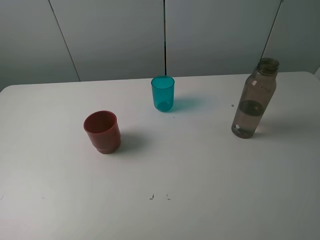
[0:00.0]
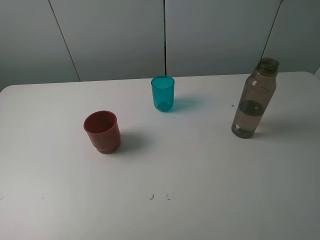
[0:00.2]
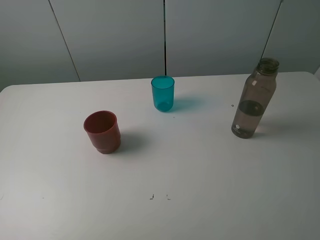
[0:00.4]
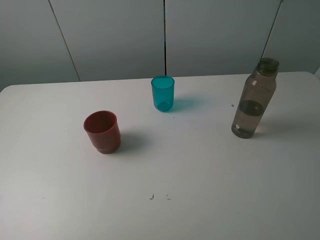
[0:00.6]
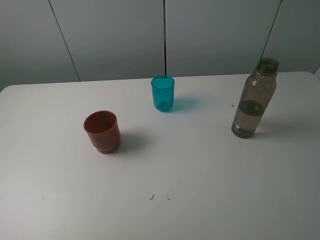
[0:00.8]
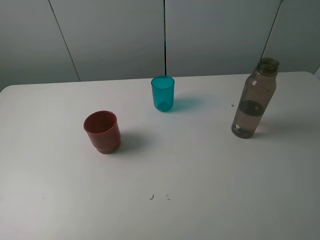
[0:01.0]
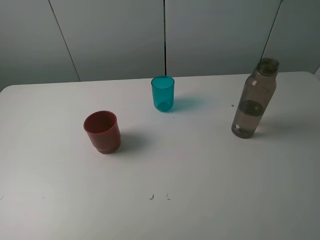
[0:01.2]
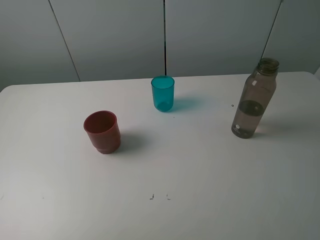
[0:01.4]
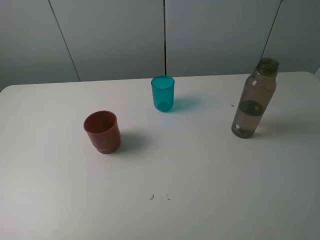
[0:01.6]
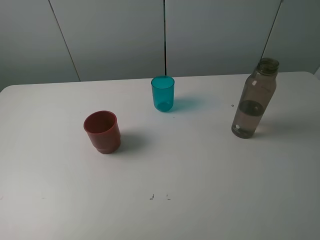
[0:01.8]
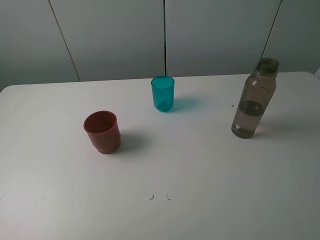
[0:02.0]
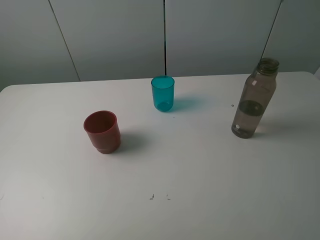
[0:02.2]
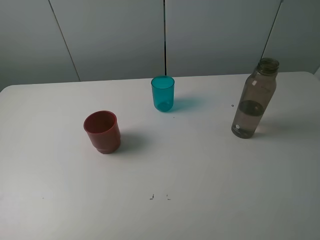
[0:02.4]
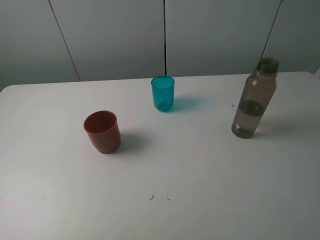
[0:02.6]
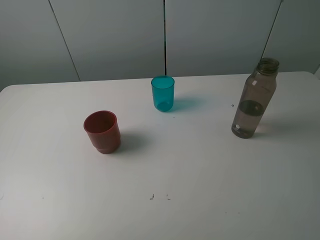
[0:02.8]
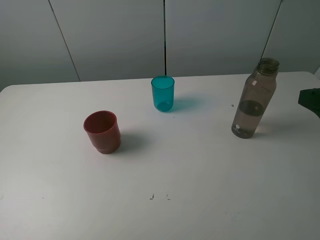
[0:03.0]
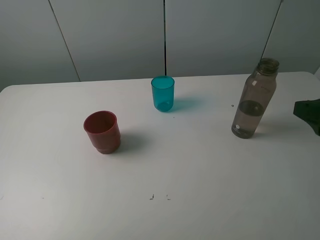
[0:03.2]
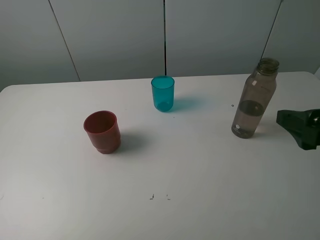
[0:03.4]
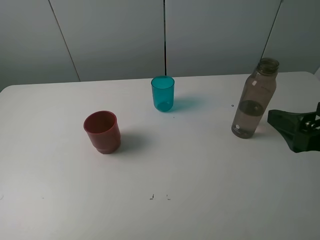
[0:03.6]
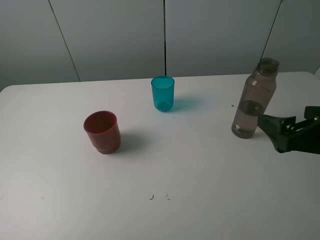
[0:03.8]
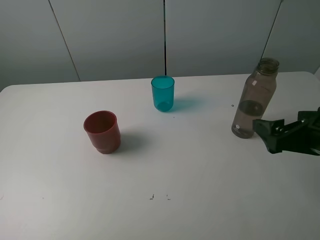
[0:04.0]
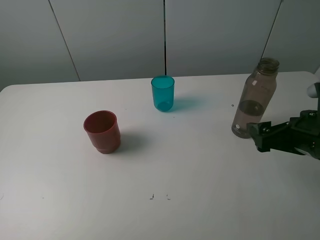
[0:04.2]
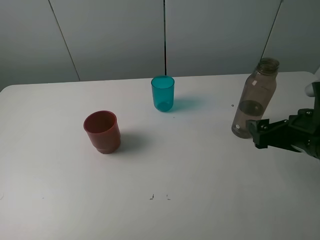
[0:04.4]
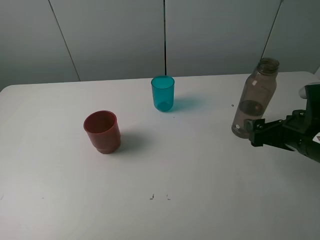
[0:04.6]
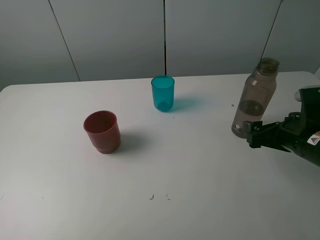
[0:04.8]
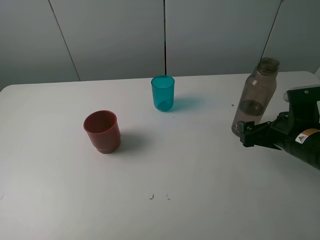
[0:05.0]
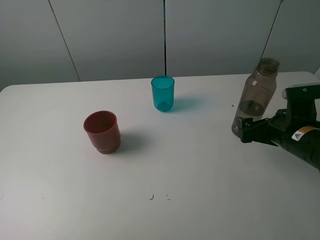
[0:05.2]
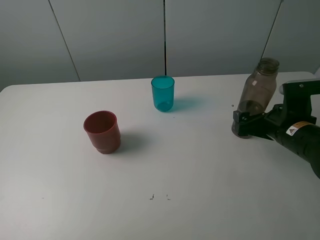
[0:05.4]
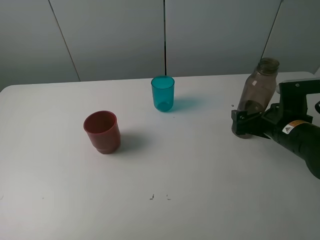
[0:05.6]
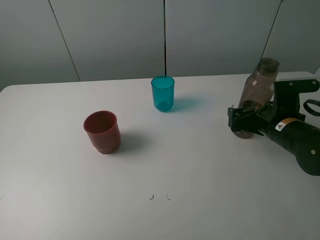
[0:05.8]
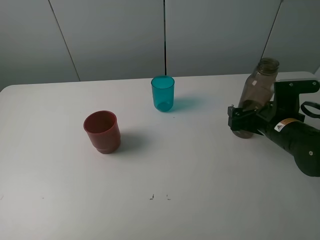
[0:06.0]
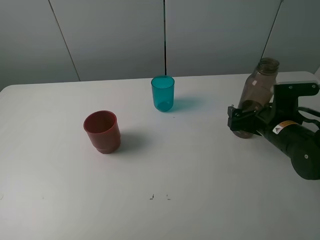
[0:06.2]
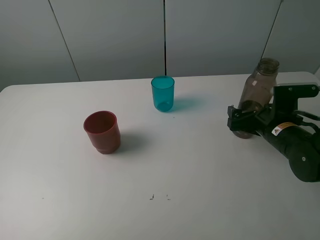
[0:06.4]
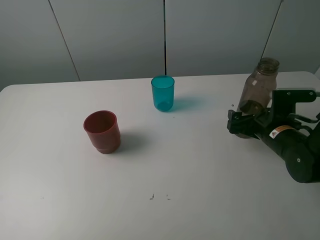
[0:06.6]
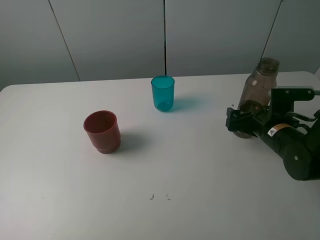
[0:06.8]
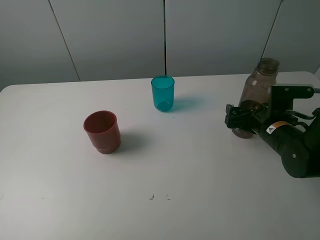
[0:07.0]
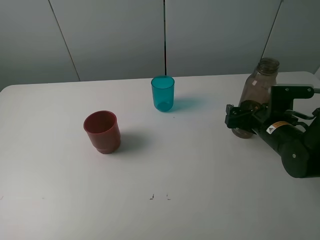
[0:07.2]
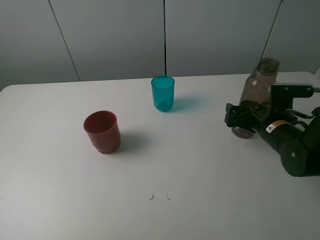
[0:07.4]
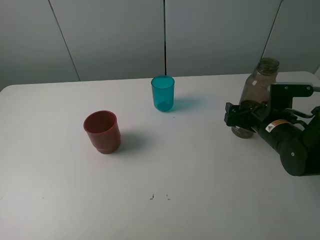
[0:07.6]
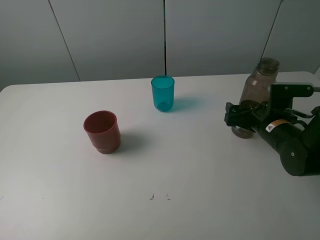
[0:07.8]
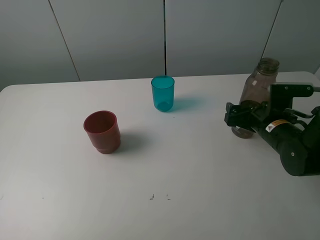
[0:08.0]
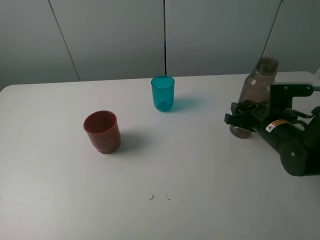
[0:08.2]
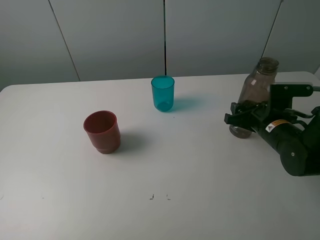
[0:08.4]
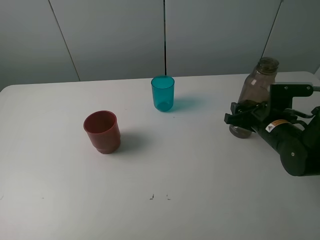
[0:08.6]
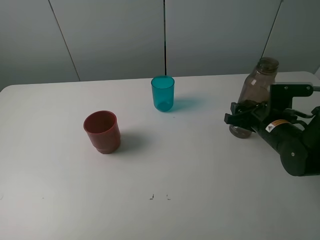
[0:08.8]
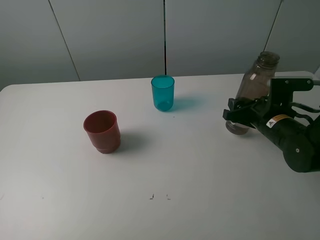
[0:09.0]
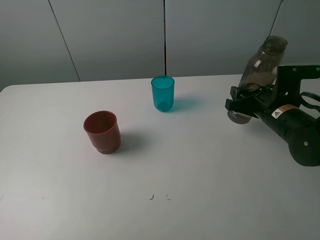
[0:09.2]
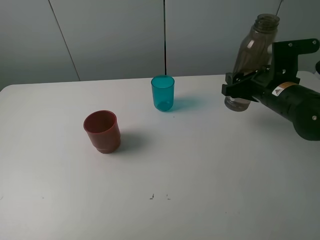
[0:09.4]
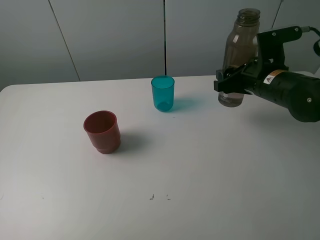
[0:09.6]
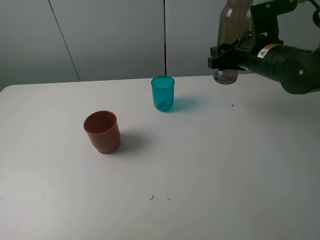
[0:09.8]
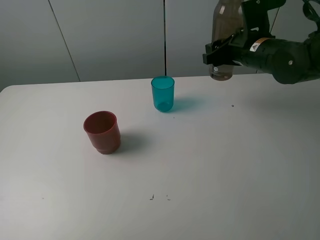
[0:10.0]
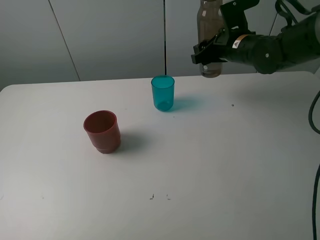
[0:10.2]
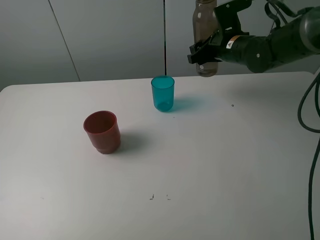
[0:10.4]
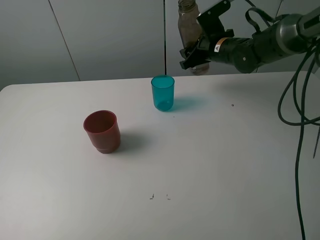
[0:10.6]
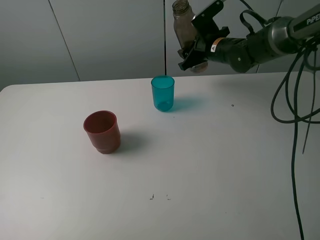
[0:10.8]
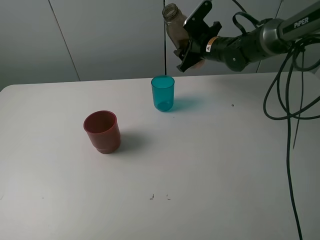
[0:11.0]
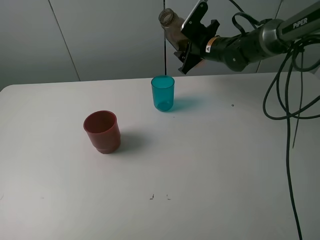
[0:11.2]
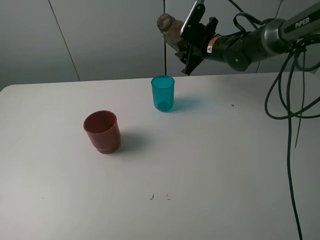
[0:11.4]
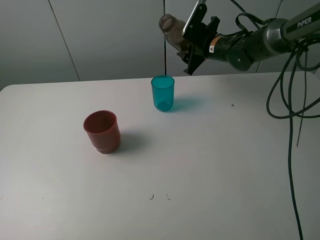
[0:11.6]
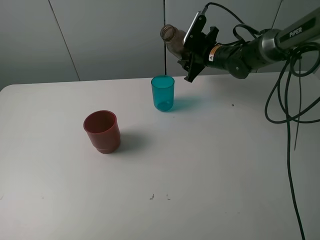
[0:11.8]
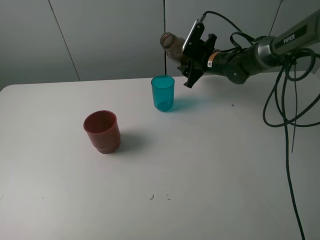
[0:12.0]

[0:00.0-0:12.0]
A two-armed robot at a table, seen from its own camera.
Task of the whole recording: pick up the bottle and pour water into the cup, then pick up the cup containing water and pour it into another cup.
Step, 0:00.0 to 0:08.2: Grasp the brown bottle with the right gripper.
0:00.0 to 0:01.6: Neither gripper changes place.
0:03.0 to 0:04.4: The right gripper heads downward and forward, covering some 10 cm.
0:04.4 to 0:06.0: The right gripper is displaced forward and downward by roughly 10 cm.
0:06.0 to 0:07.6: There are only small adjustments of the grippers.
0:07.6 to 0:09.0: The right gripper closes.
0:09.0 to 0:10.4: The right gripper moves forward, upward and to the left, roughly 20 cm.
0:10.4 to 0:12.0: The right gripper goes about 10 cm downward and forward.

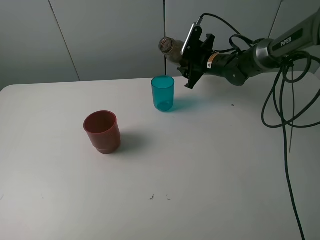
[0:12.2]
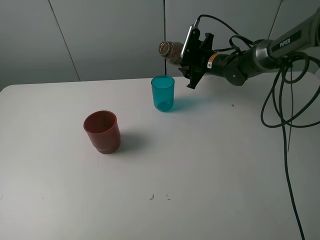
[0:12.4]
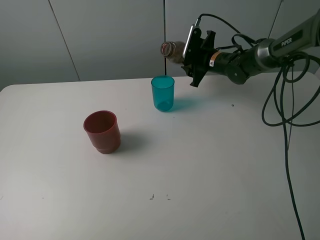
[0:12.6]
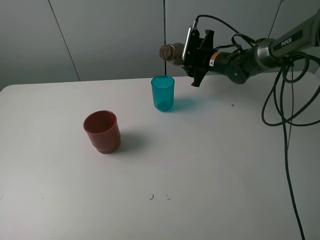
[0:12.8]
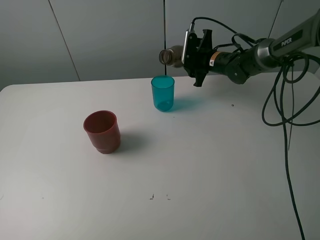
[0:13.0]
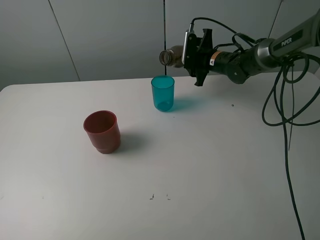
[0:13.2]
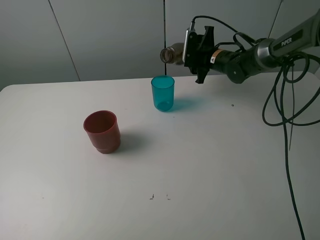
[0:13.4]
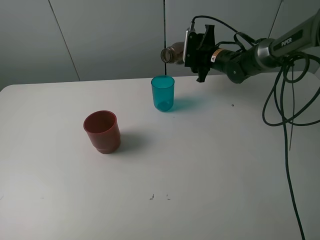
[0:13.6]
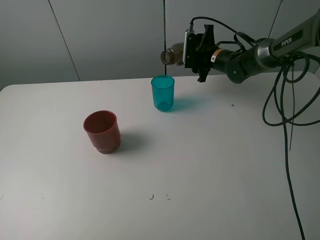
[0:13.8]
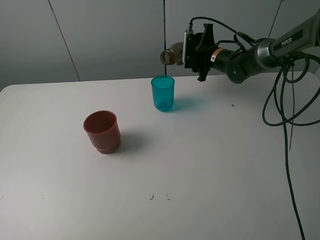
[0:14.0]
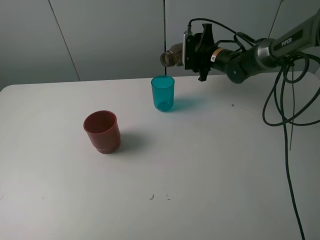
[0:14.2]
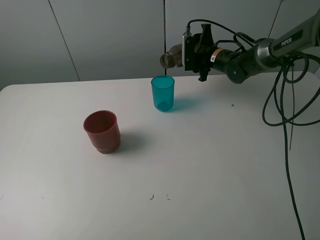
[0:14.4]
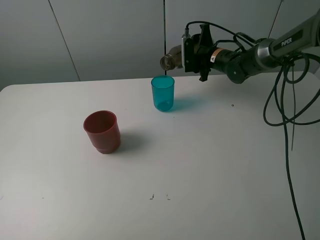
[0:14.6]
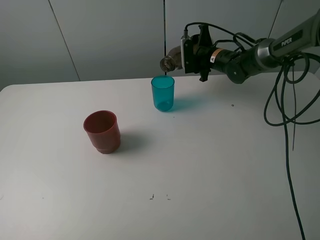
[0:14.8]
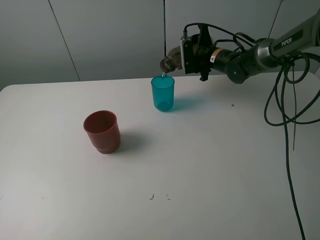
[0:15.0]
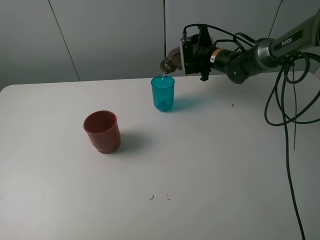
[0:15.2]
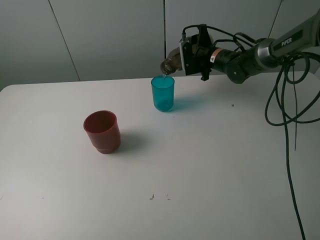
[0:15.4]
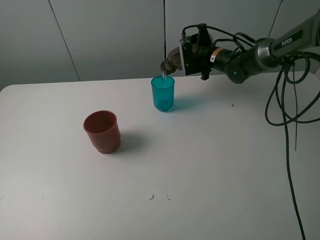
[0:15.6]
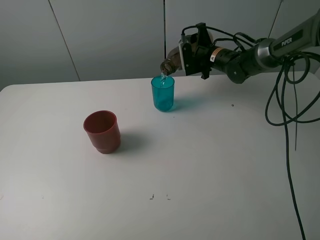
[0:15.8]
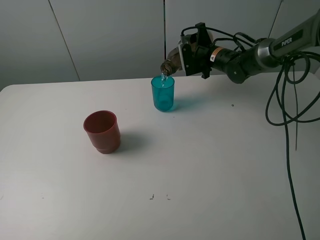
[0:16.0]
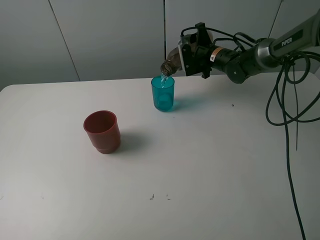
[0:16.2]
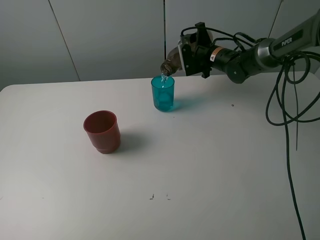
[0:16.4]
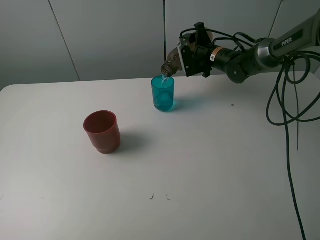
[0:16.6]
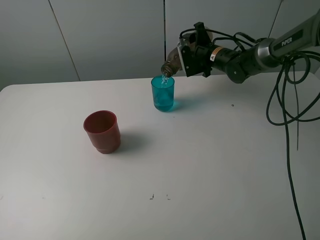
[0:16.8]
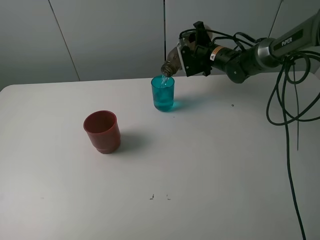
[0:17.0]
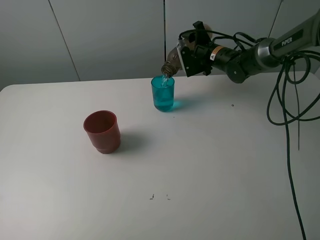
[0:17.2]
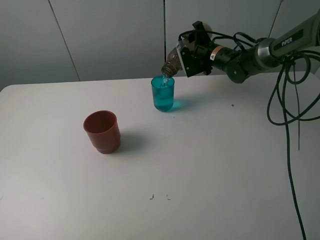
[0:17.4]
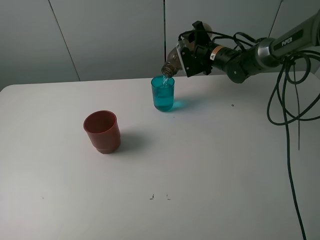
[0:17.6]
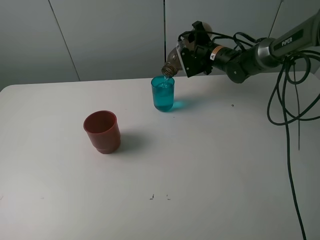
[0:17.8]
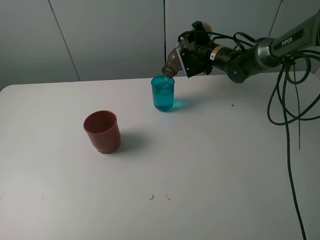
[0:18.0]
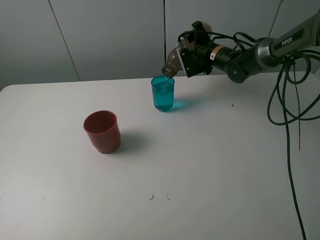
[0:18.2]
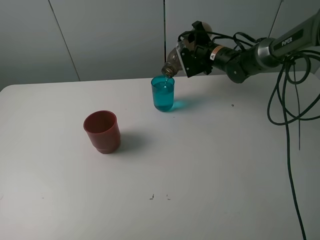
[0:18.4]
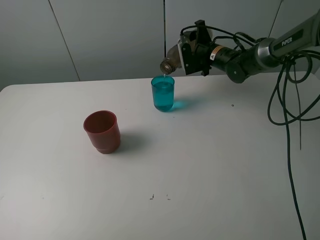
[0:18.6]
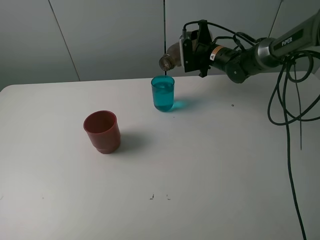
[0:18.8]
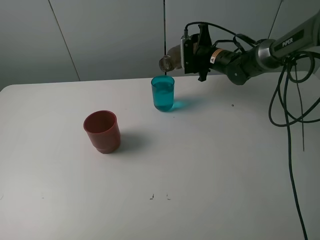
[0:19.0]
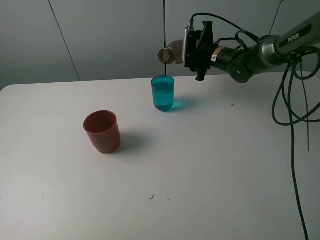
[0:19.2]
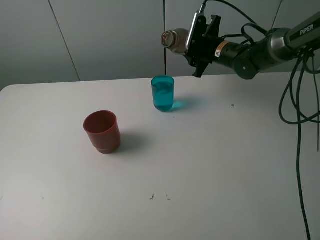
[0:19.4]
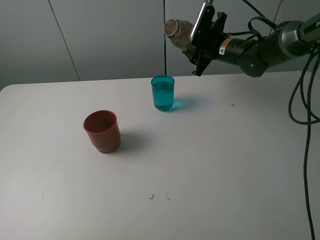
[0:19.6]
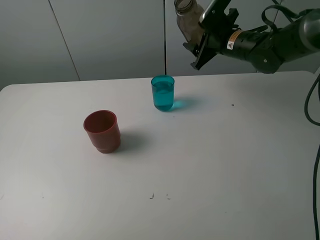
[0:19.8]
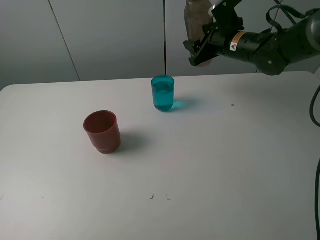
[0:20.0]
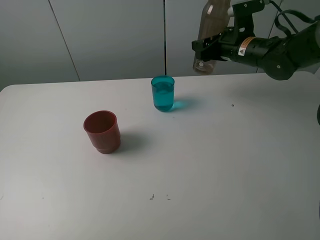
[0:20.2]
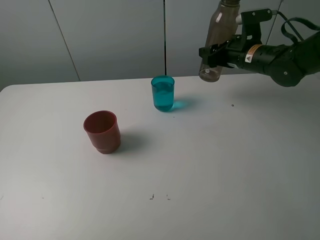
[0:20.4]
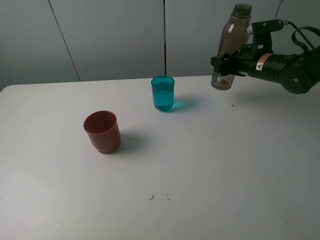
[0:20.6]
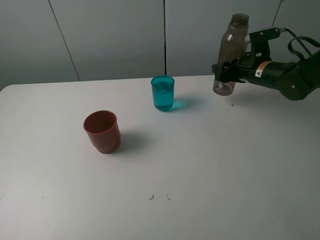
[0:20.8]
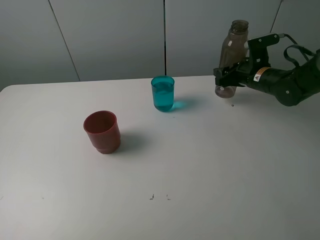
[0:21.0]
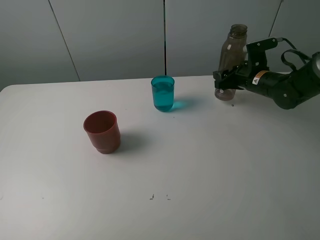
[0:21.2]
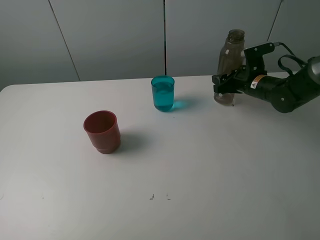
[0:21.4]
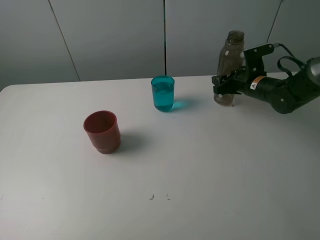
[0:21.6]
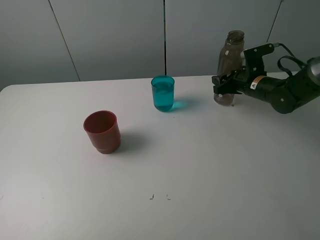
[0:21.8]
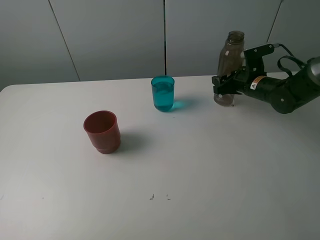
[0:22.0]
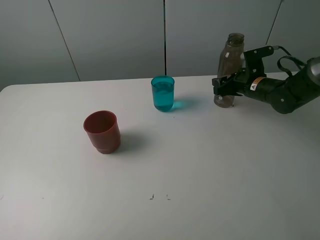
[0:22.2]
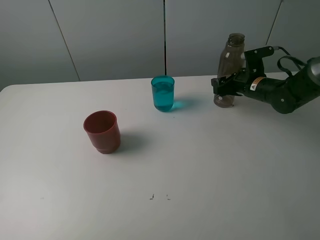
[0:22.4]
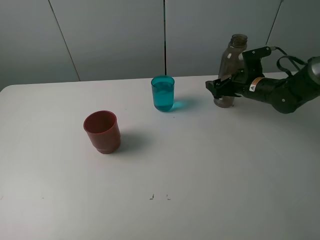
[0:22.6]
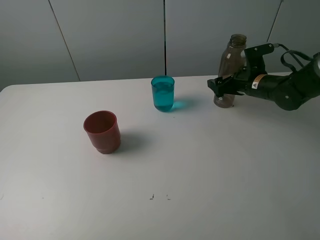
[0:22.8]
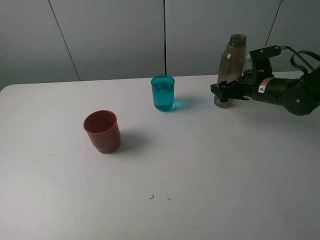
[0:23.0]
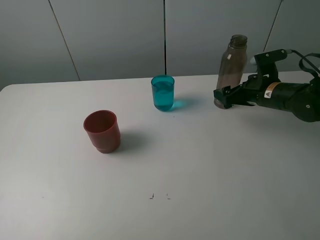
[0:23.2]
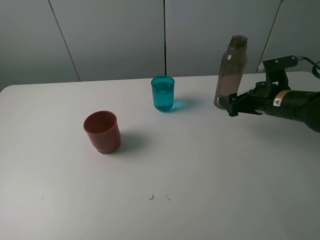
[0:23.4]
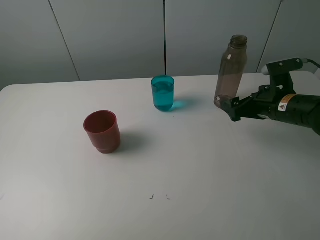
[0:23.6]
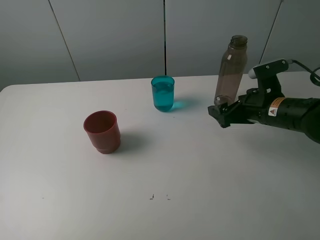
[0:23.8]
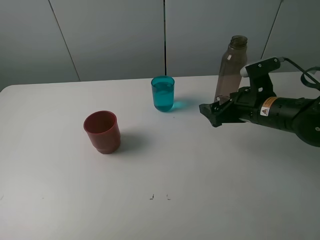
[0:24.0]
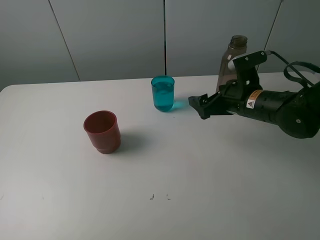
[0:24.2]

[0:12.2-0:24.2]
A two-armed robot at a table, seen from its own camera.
Task of the whole recording: pick up the bottle and pour water into the cup, then pick up the cup containing water and pour it into another cup.
Step, 0:12.2 to 0:18.8: Pour water from brown bottle to blue cup with the right gripper.
Step, 0:19.0 to 0:22.8: Place the brown bottle with the right gripper.
0:13.8 to 0:15.2: The grippers move only a little.
0:15.2 to 0:18.2: The grippers move only a little.
0:18.2 to 0:19.8: The right gripper shifts some 10 cm backward and upward.
0:19.8 to 0:21.2: The right gripper moves downward and to the right, roughly 10 cm.
0:21.2 to 0:22.6: The right gripper opens.
0:22.6 to 0:24.2: The right gripper shifts roughly 10 cm backward and to the left.
